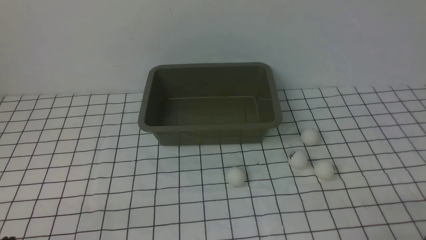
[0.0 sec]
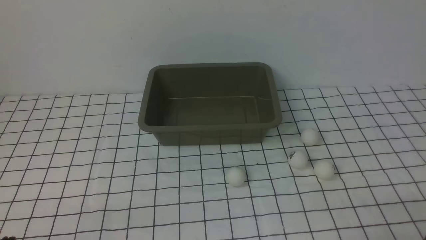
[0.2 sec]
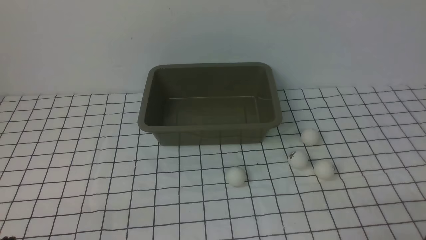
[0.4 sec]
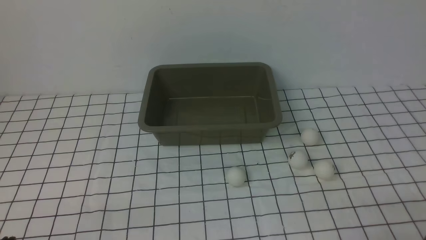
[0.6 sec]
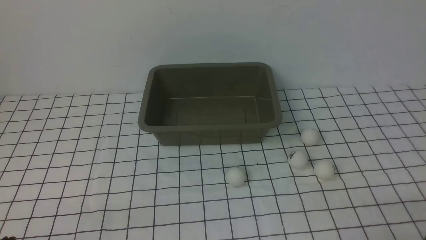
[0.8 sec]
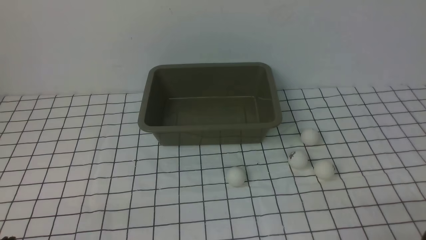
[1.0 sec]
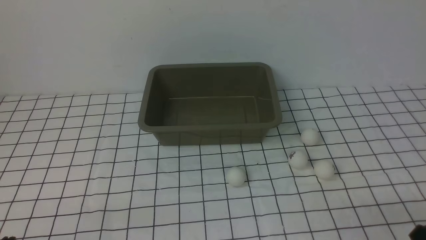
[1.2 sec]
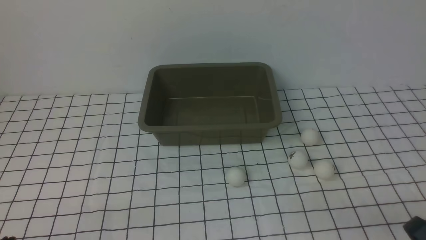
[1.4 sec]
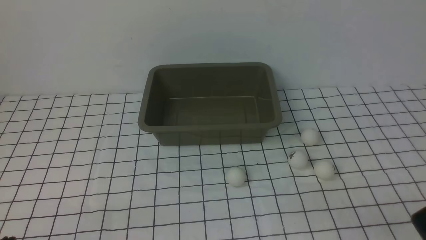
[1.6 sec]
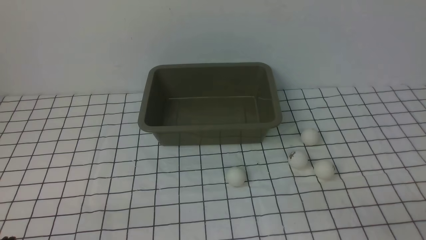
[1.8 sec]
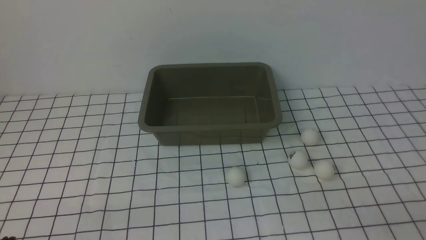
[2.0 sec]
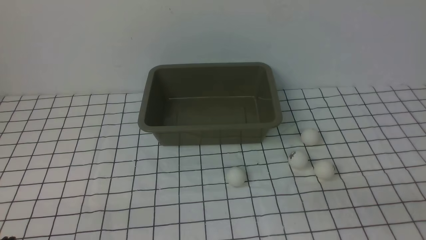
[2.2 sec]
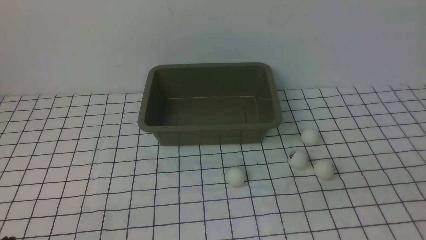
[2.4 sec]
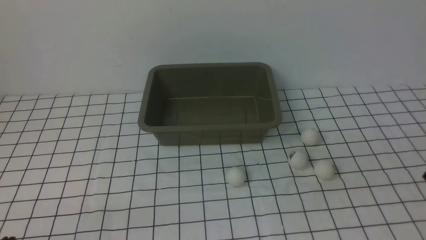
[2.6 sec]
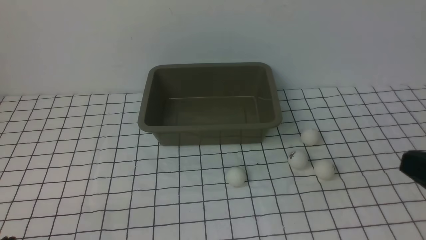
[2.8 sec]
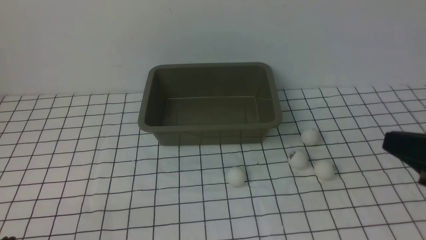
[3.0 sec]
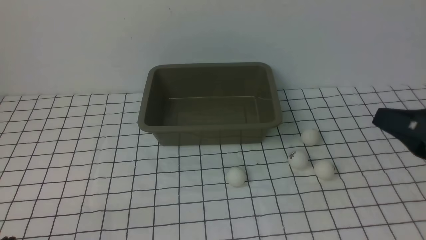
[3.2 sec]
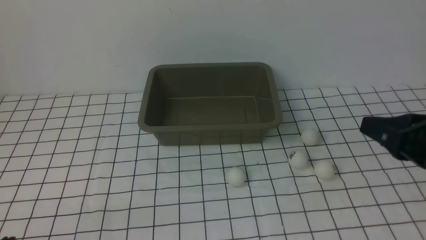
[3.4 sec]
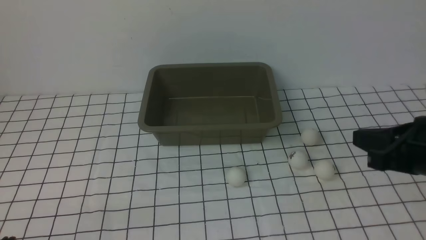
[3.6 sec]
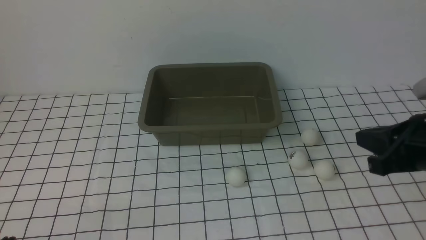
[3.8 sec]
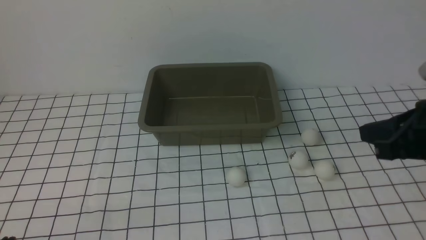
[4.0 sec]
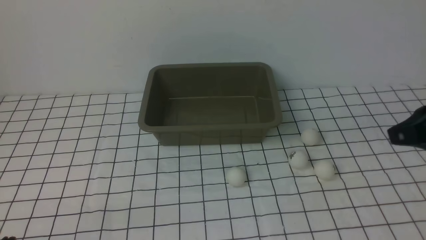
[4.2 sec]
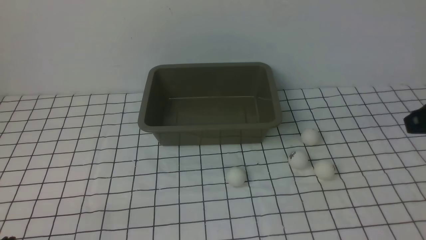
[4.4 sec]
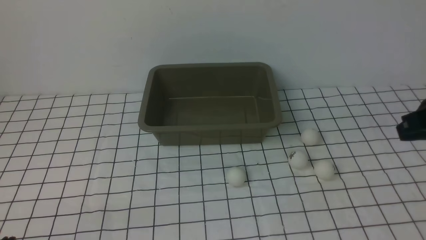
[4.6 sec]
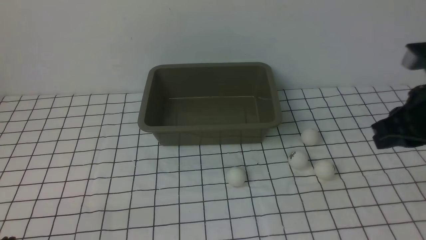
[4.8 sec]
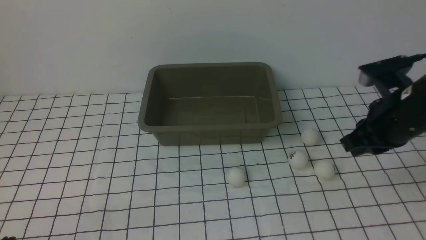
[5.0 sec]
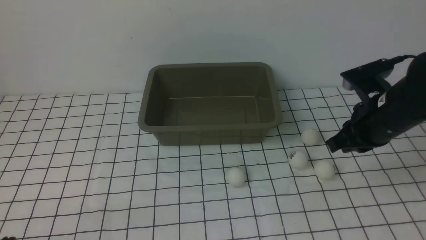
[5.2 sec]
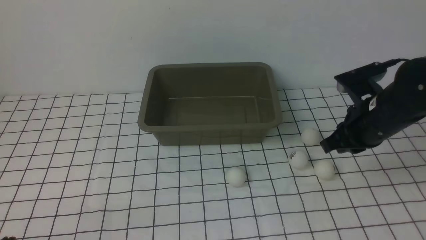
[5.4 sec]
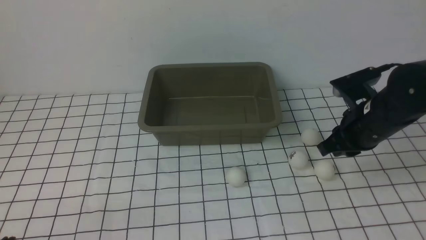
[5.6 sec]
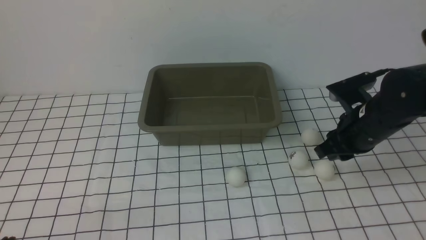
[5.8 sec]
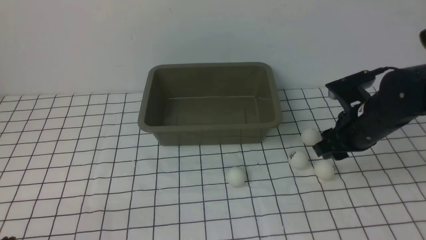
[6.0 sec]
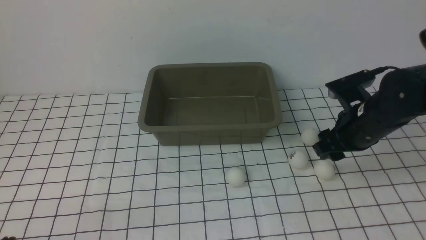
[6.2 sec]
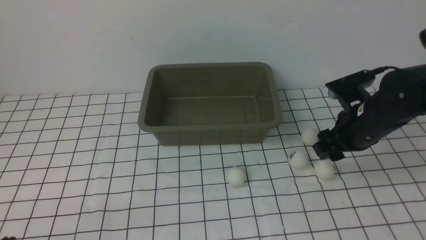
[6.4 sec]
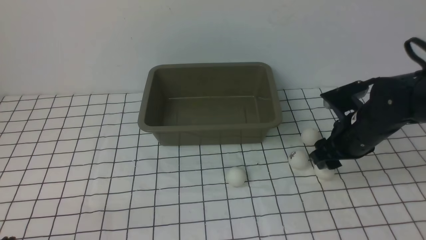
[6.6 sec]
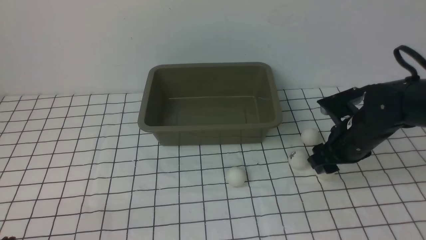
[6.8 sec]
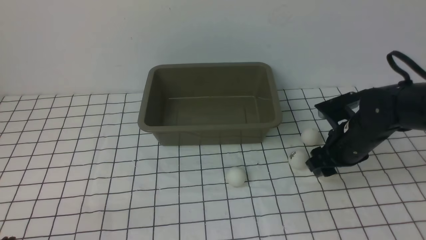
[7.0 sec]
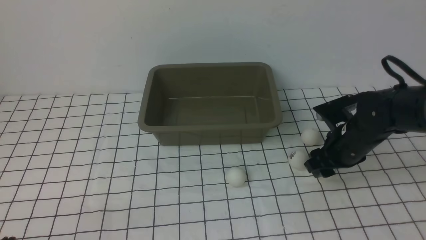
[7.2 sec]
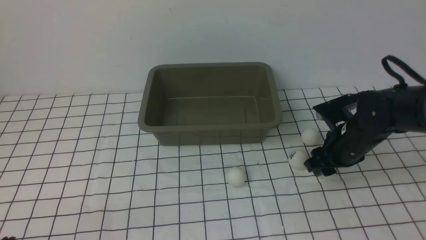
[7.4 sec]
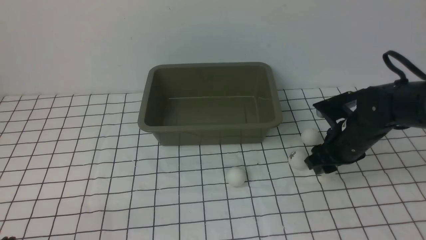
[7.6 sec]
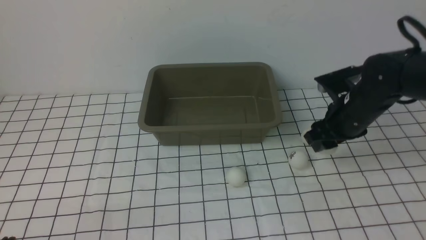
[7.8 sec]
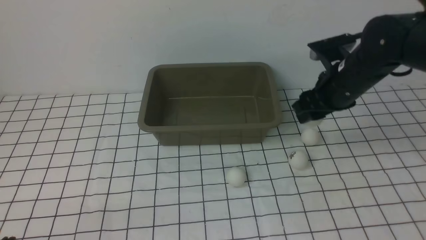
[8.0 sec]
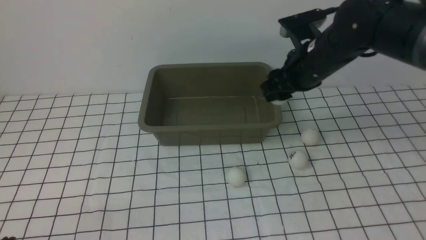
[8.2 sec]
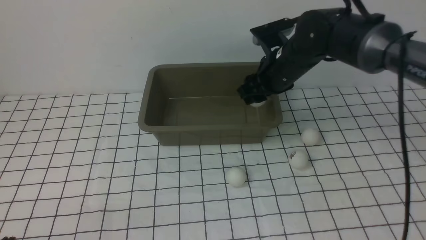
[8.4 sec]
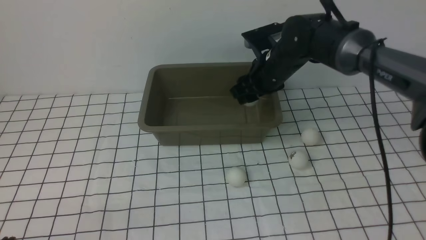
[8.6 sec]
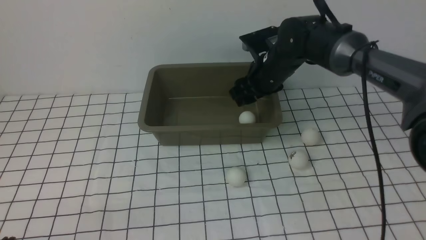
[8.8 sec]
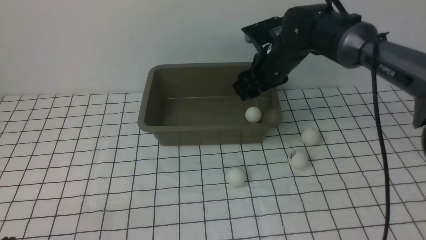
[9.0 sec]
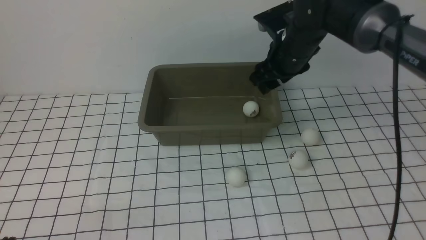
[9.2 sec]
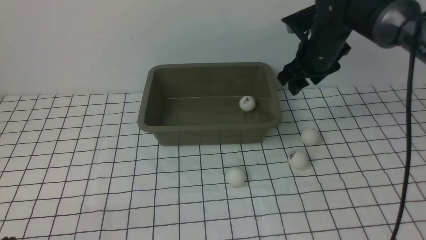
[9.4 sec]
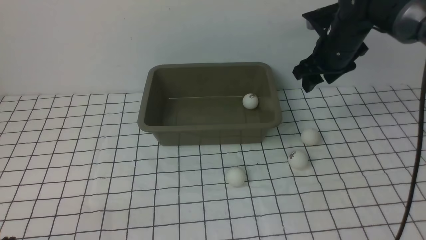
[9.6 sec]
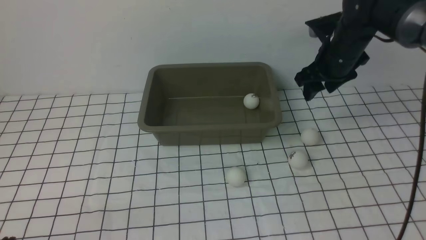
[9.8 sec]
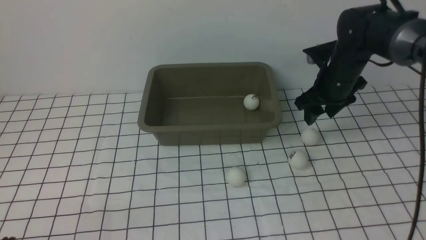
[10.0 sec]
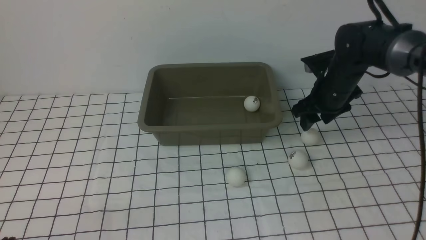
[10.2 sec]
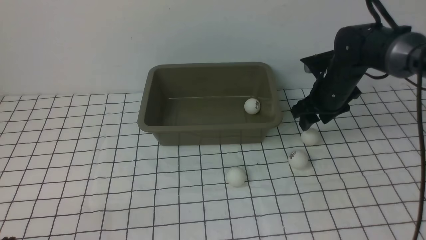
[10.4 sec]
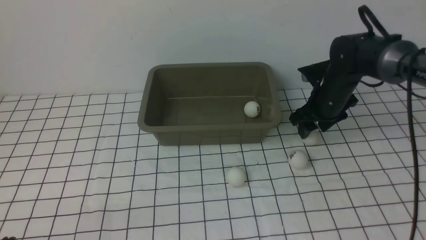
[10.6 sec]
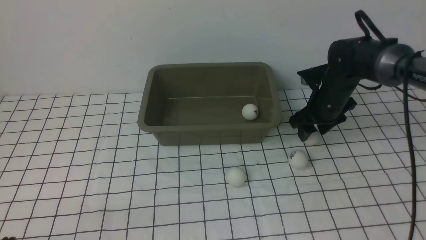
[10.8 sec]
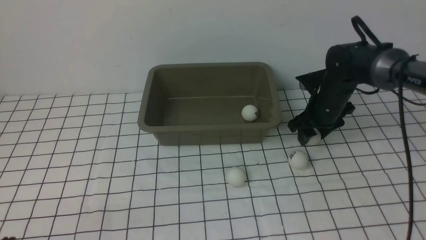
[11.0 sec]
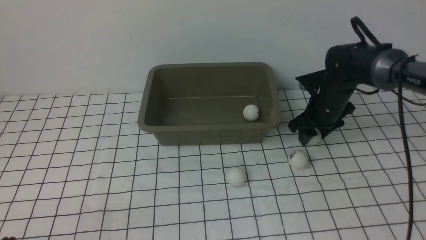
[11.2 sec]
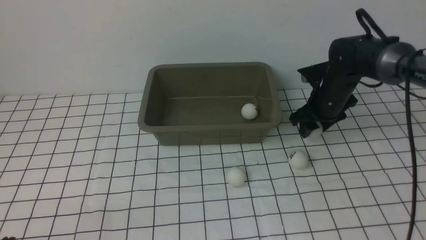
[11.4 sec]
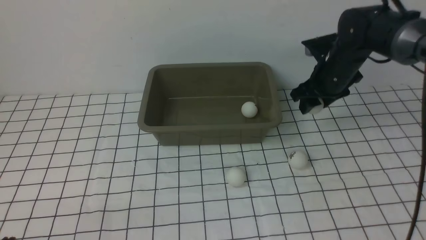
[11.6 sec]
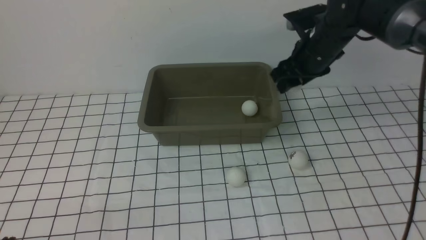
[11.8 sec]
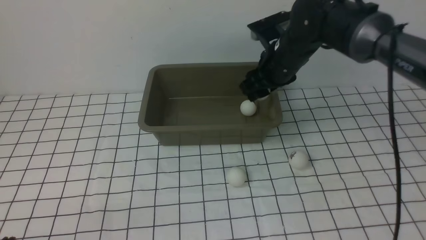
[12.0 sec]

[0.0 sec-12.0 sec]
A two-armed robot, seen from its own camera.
Step, 0.0 sec to 7.8 sec: use the right arm to clamp the table tennis ball closest to it.
Step, 8.0 sec to 8.8 sec: use the right arm to put the table tennis ball into the box.
Step, 9.0 sec to 11.4 sec: use the right arm to clamp the table tennis ball closest to it.
1.6 sec to 3.0 sec: The right gripper shifts some 15 cm forward and upward.
3.0 sec to 4.4 sec: The right gripper goes about 10 cm forward.
4.4 sec to 6.0 sec: The right gripper heads downward and forward, covering some 15 cm, and opens.
6.0 sec to 7.6 sec: There are only small adjustments of the grippers.
7.6 sec to 9.0 sec: The right gripper shifts roughly 15 cm to the left, forward and upward.
9.0 sec to 10.4 sec: The right gripper moves to the right and downward, approximately 10 cm.
10.4 sec to 12.0 sec: The right gripper shifts some 10 cm to the left and upward.

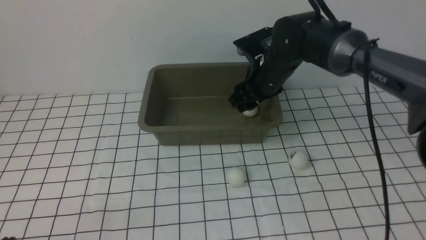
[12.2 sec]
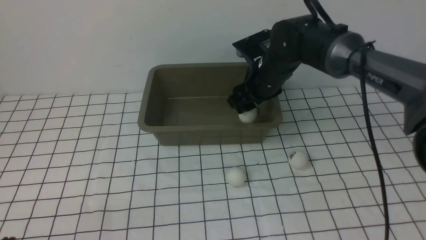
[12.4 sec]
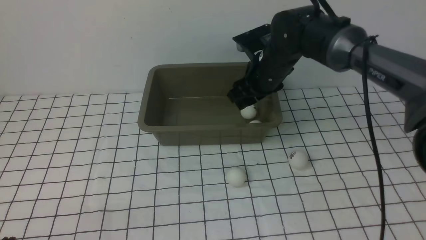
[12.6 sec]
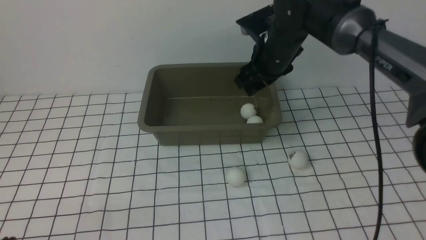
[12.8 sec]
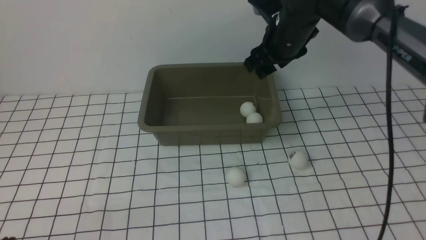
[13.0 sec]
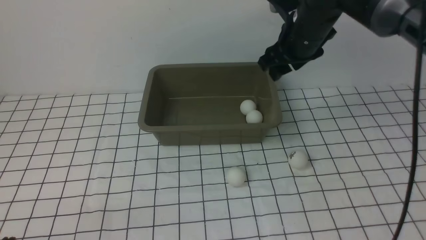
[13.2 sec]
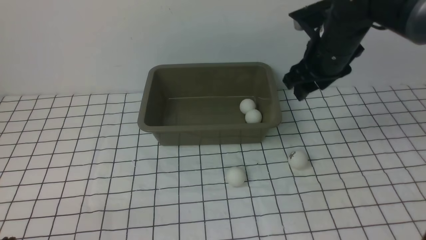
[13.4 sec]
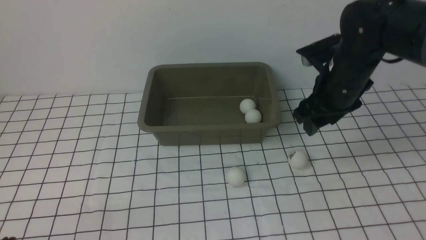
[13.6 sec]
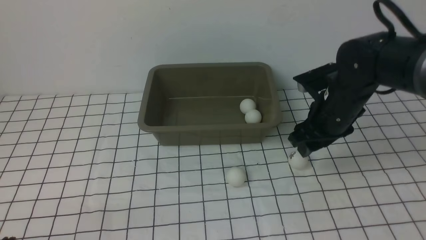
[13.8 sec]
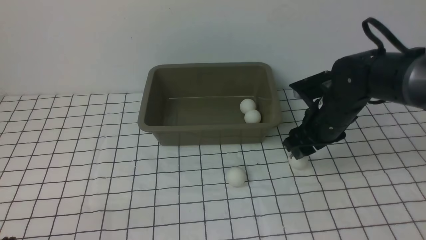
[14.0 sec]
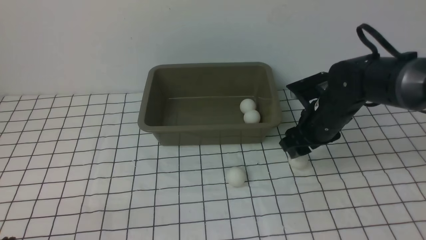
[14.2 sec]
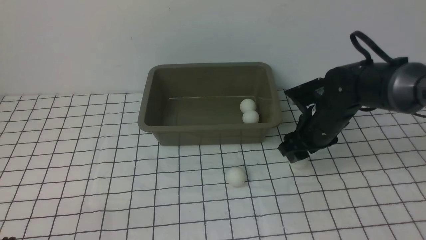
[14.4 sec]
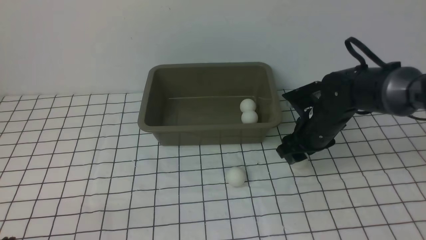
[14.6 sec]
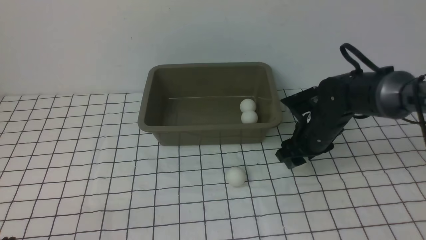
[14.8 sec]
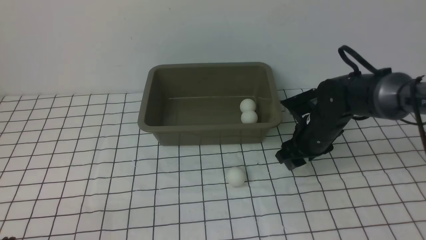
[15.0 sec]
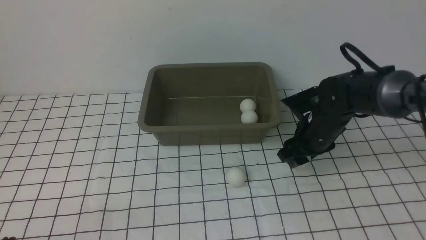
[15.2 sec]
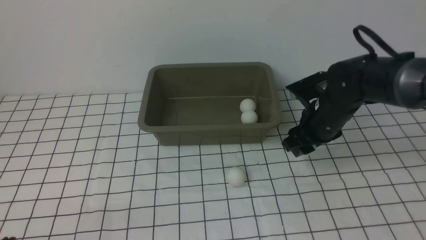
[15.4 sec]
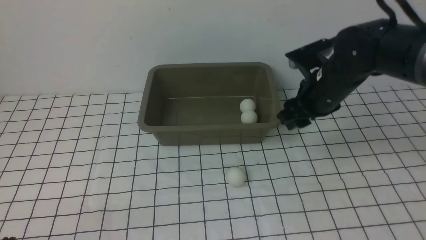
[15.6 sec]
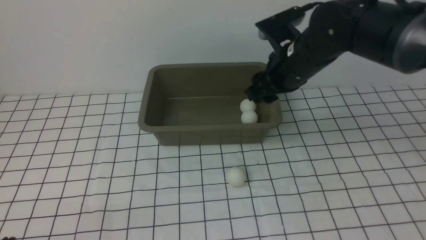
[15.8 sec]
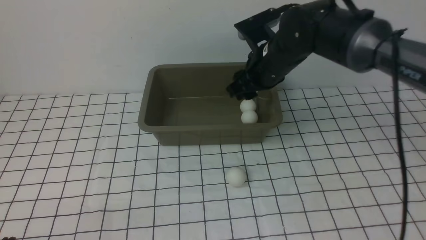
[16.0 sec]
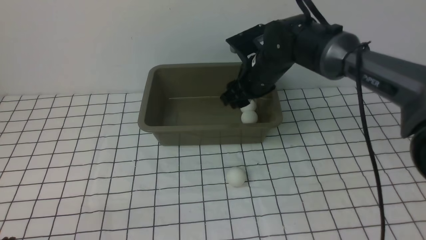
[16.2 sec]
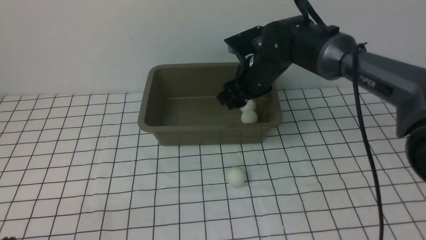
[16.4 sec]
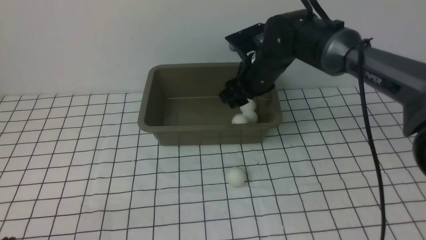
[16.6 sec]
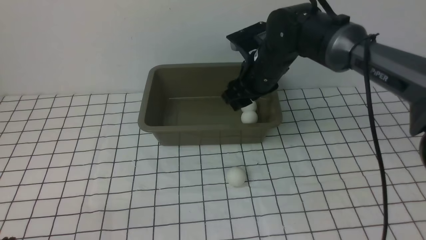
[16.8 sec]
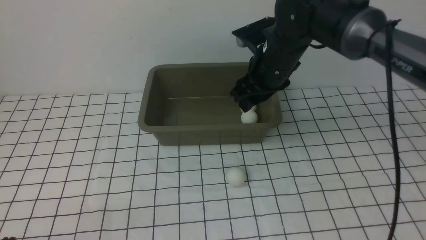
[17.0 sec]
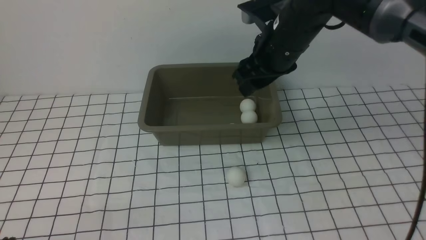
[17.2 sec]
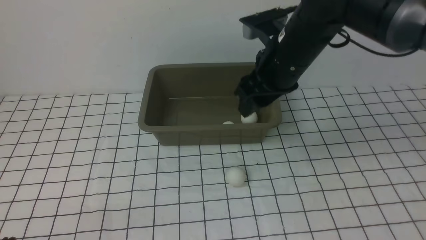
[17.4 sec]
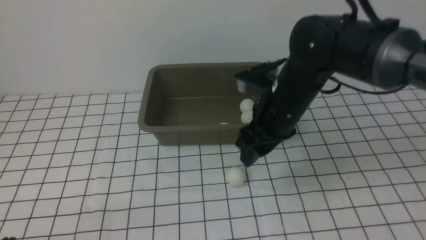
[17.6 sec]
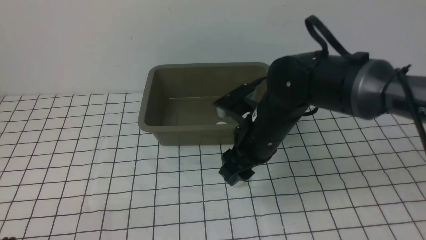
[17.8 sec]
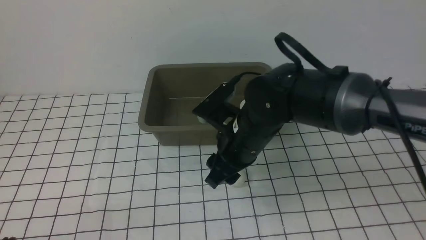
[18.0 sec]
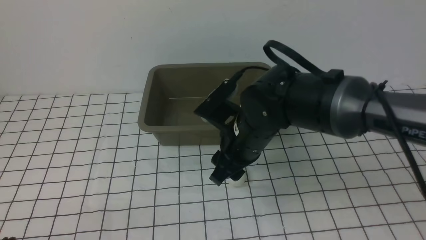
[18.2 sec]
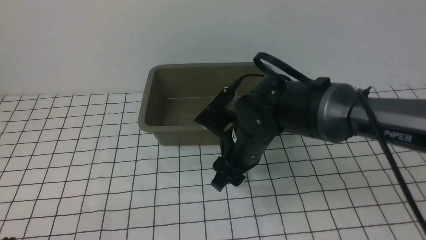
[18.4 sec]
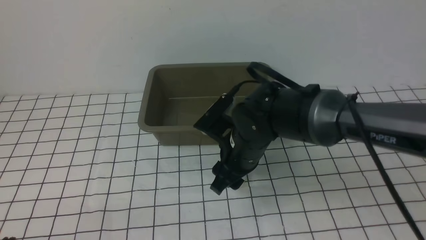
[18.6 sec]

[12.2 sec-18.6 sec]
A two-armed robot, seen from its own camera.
Step, 12.8 sec to 15.4 sec: use the right arm to clamp the table tennis ball closest to it.
Step, 15.6 sec to 16.6 sec: use the right arm to put the table tennis ball into the box.
12.2 sec to 13.8 sec: The right gripper shifts about 10 cm to the right and backward.
15.4 sec to 17.0 sec: The right gripper is displaced to the left and upward by about 10 cm.
17.0 sec to 18.6 sec: The right gripper travels backward, downward and to the left by roughly 15 cm.
